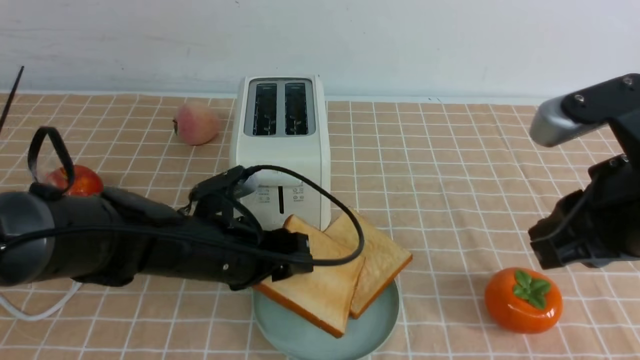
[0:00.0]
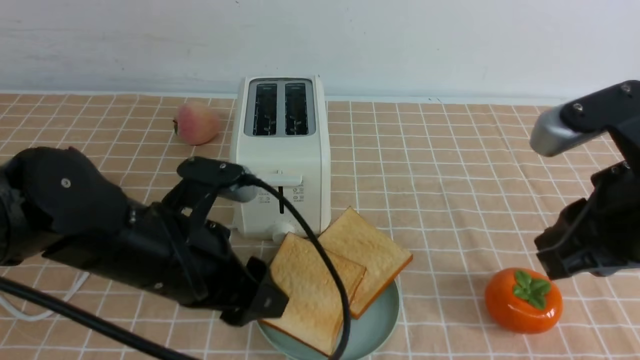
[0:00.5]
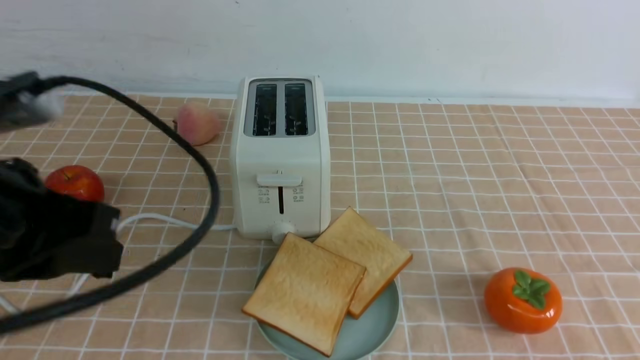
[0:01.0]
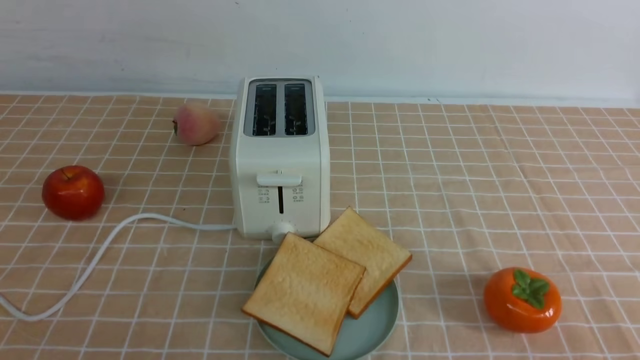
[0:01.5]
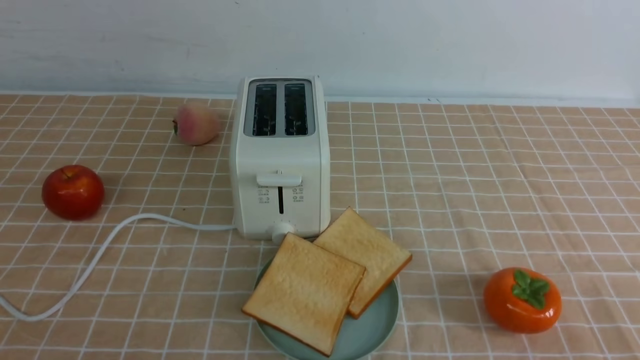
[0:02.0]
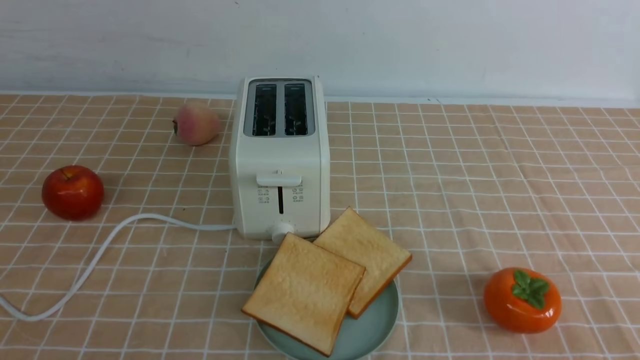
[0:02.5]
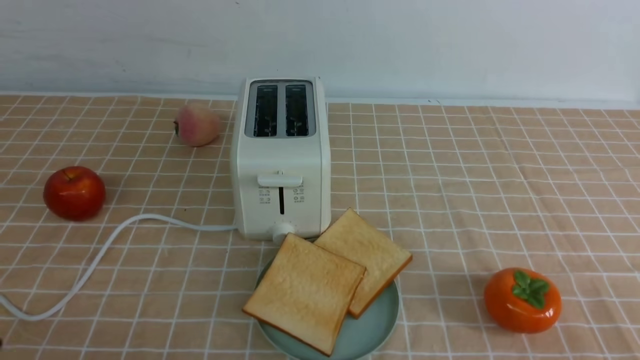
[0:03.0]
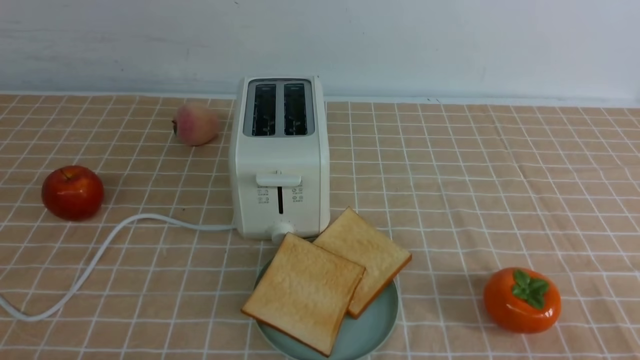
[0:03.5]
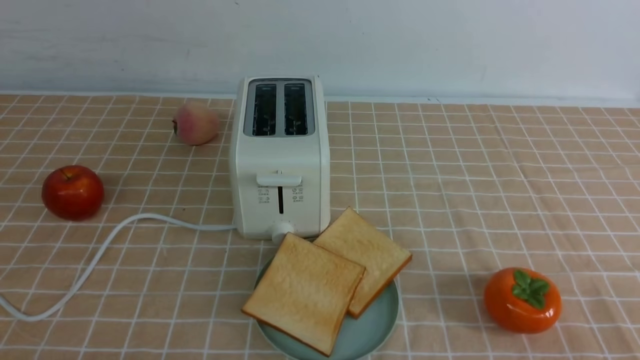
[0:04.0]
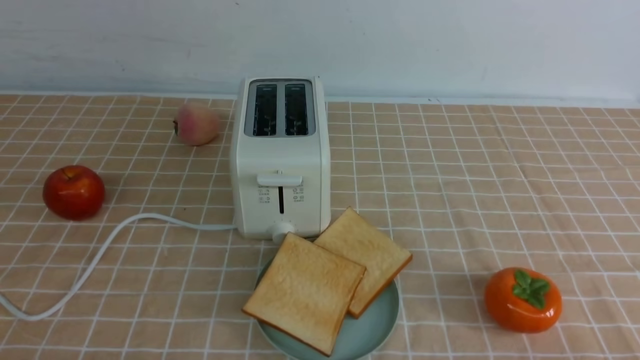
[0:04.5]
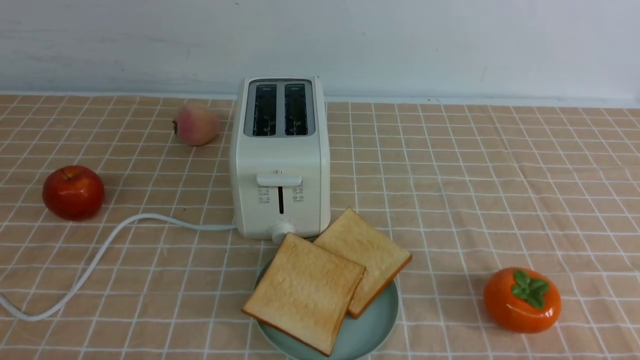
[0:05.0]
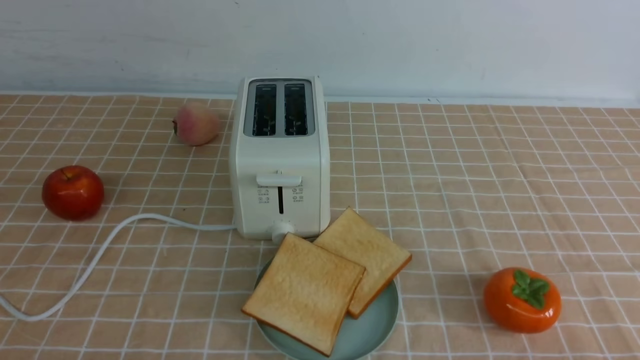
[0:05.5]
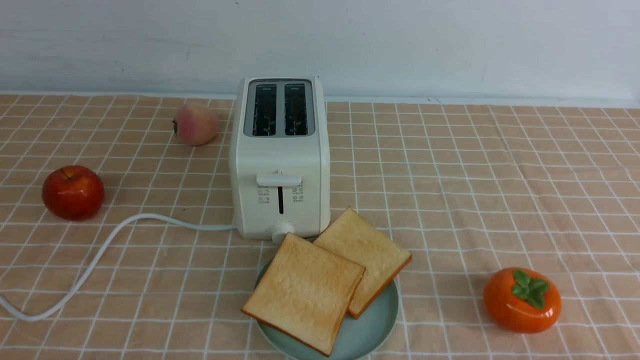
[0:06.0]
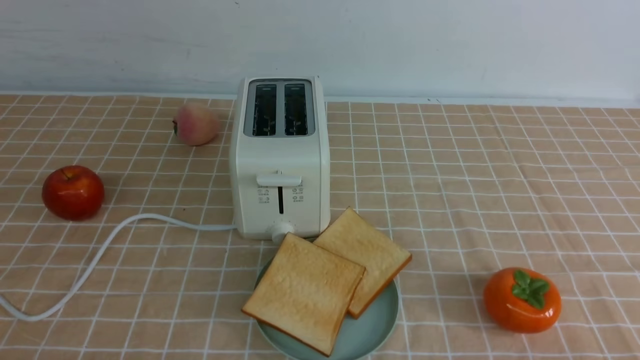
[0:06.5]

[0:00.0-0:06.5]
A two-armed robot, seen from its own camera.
Task of the whole recording: take toasted bread from bread machine on light coffee tablecloth place on plate.
0:00.0 to 0:02.0: The right gripper shifts some 20 cm backward, downward and to the right. The left gripper shifts approximately 35 cm backward, upward and to the left, and closes its fingers.
0:04.5 to 0:06.5: Neither gripper changes place.

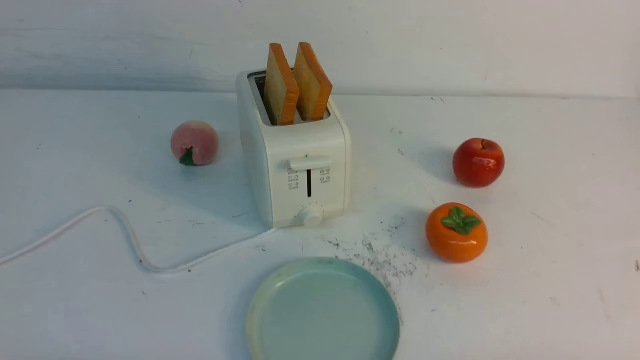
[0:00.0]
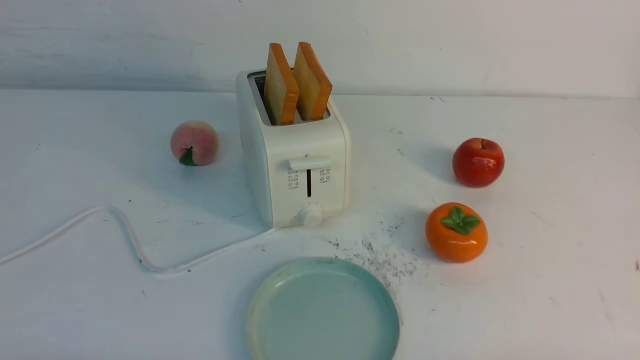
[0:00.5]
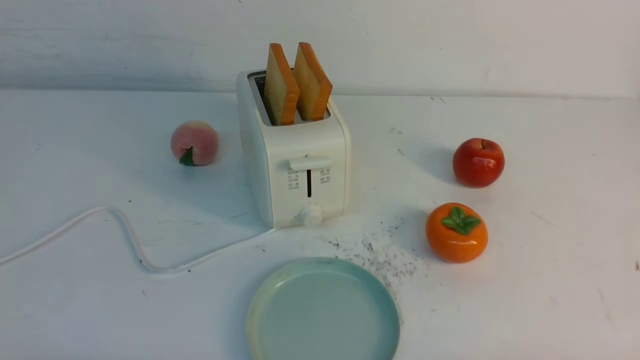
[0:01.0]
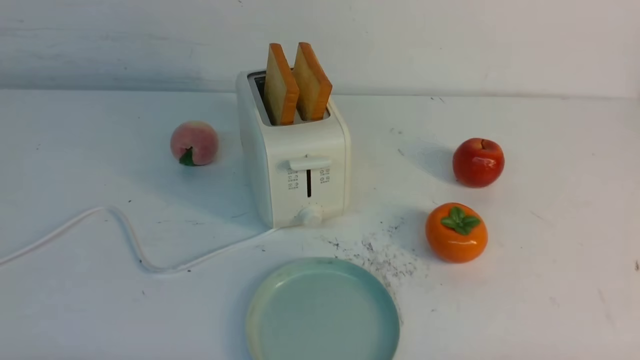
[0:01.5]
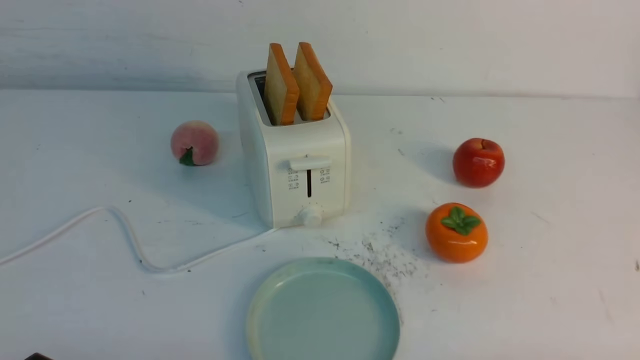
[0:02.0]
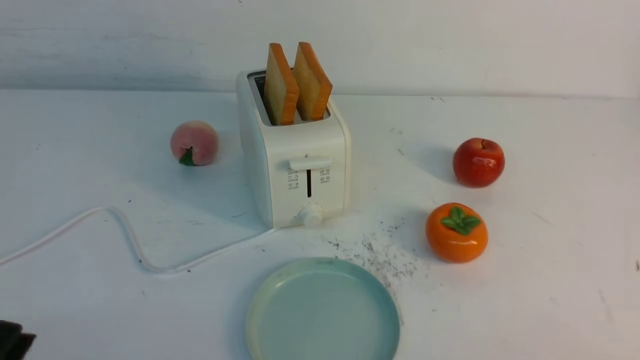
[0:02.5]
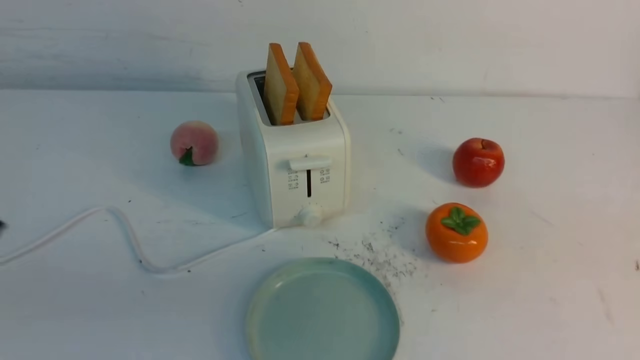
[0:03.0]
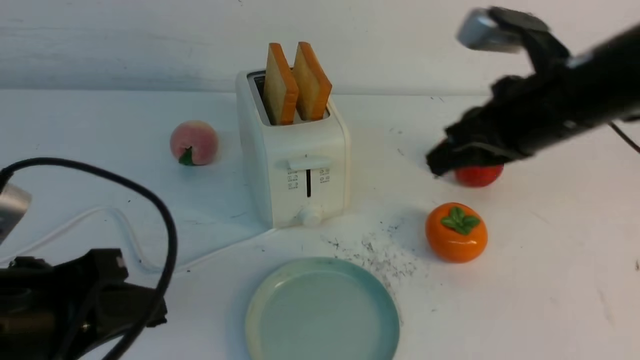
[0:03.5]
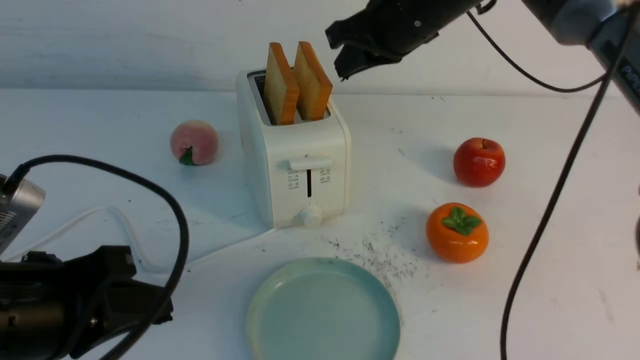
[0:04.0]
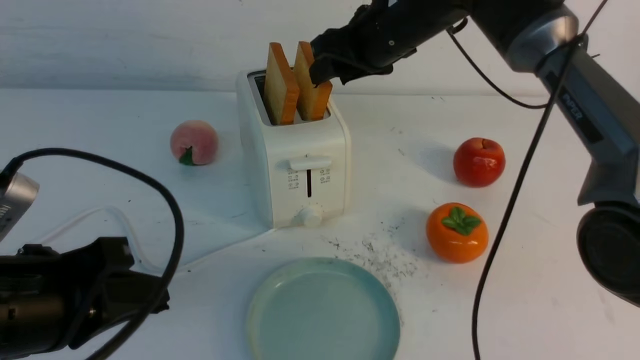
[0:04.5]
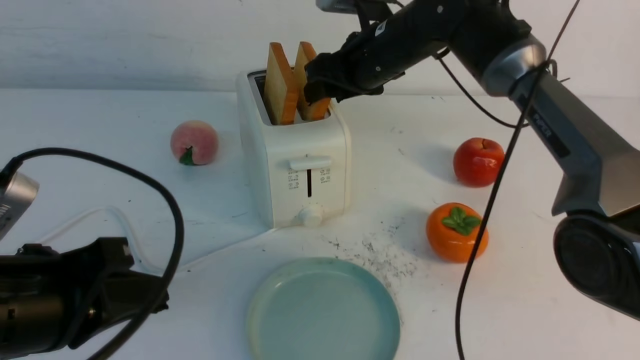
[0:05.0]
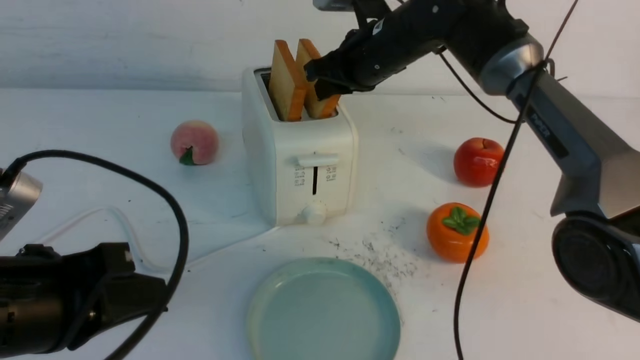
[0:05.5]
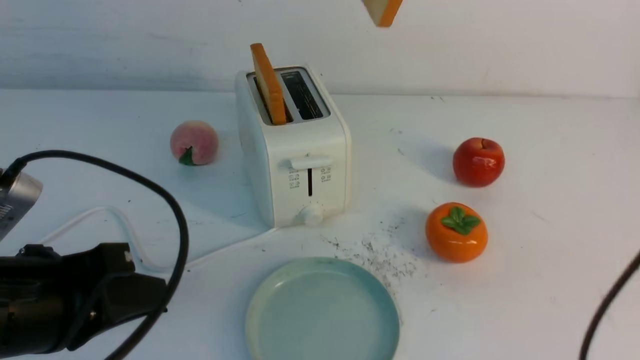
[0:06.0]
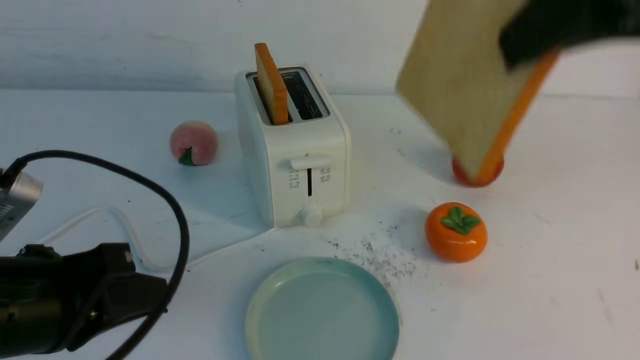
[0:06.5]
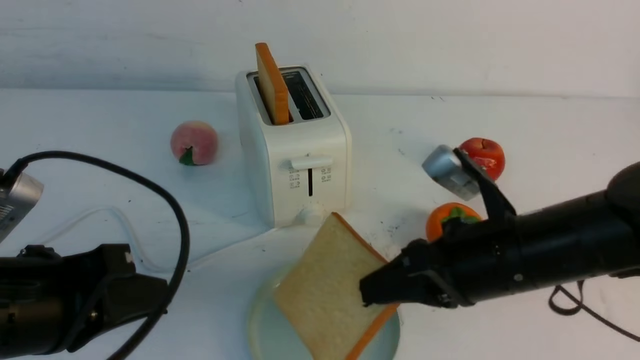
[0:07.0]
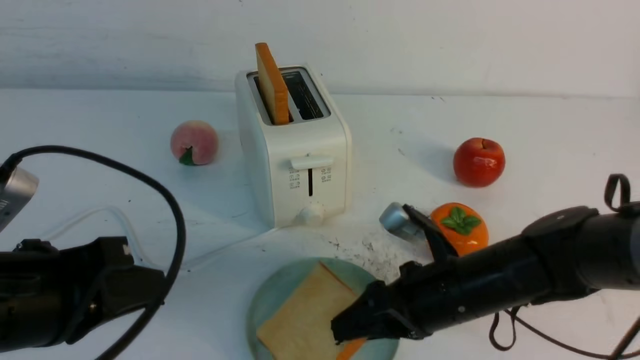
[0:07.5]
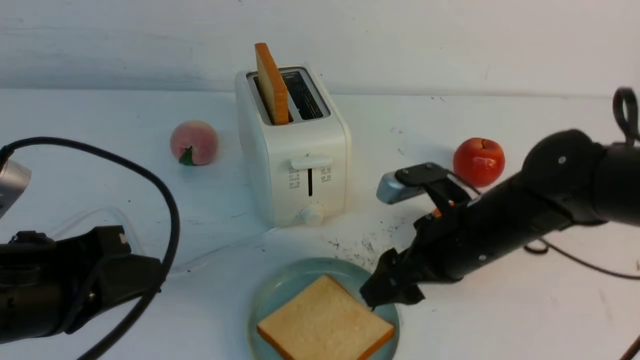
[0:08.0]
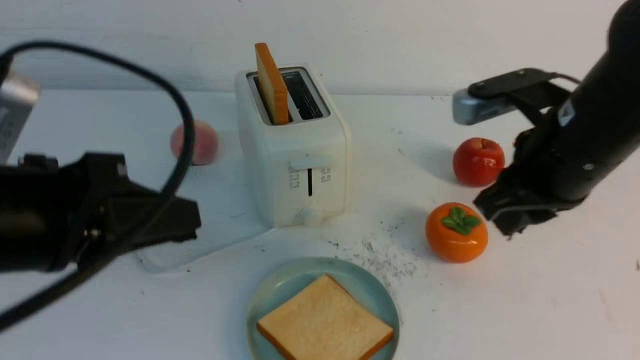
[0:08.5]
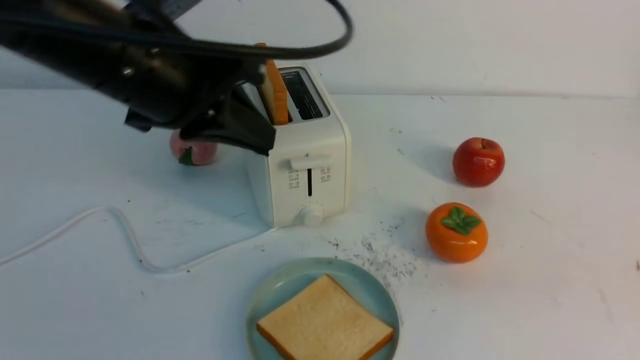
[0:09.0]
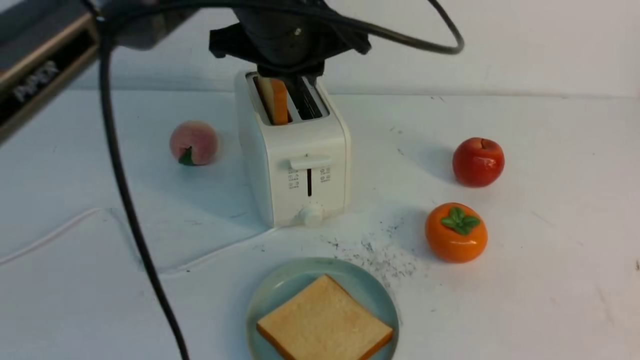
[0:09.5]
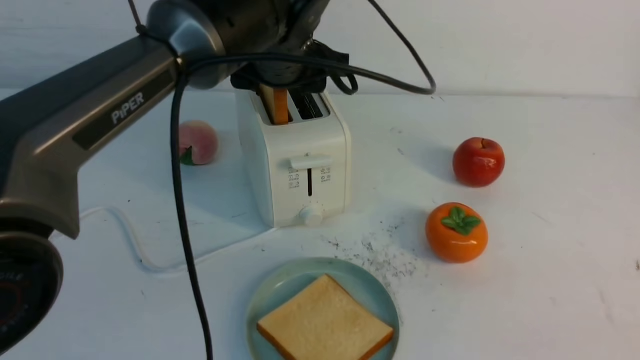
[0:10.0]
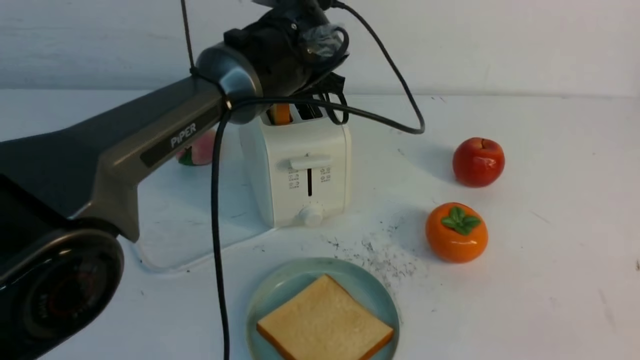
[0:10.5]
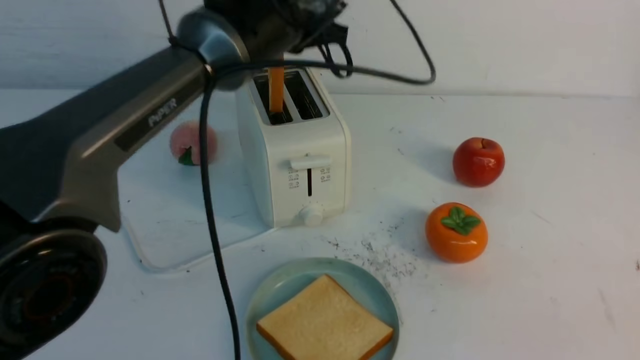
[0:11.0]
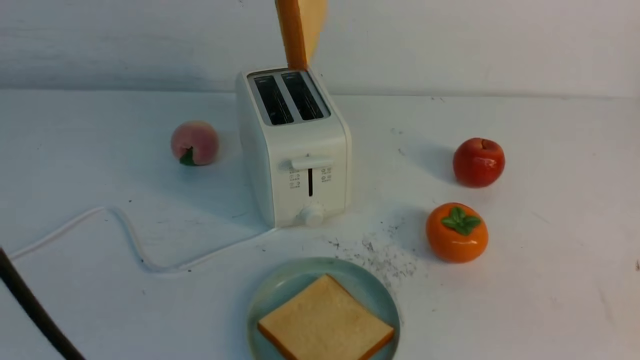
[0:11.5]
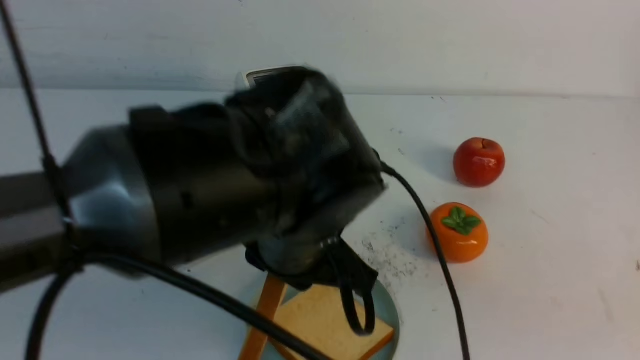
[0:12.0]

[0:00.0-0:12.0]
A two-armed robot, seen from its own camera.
Task of the whole recording: take toasted bread from bread machine on white table place on plate.
Step, 0:00.0 to 0:05.5: use the right arm to take out a slice of bread.
Step, 0:06.0 to 0:08.0: use the right arm to put a slice of bread into the plate.
Step, 0:08.5 to 0:11.0: use the left arm to take out a slice of bread.
0:02.0 to 0:04.0: The right gripper shifts approximately 50 cm forward, to the left and upward, while the left gripper travels upward and forward by roughly 15 cm, and closes its fingers.
0:04.0 to 0:06.0: The right gripper goes some 15 cm upward and backward, and opens and closes again.
0:06.0 to 0:08.0: The right gripper travels downward by some 30 cm, and opens.
0:08.0 to 0:10.0: The right gripper is displaced backward, to the right and upward by about 30 cm, and closes up; the left gripper shifts some 30 cm forward and to the right, and opens its fingers.
0:10.0 to 0:12.0: The left gripper shifts some 20 cm backward, and closes up.

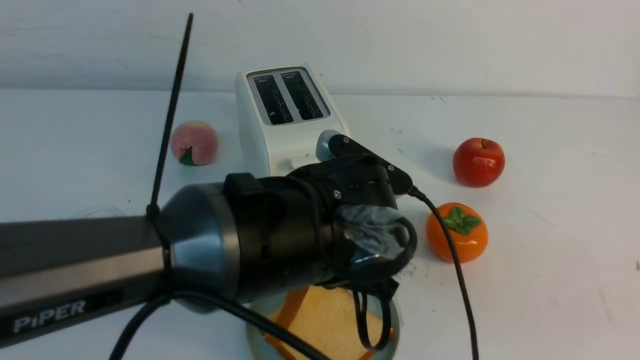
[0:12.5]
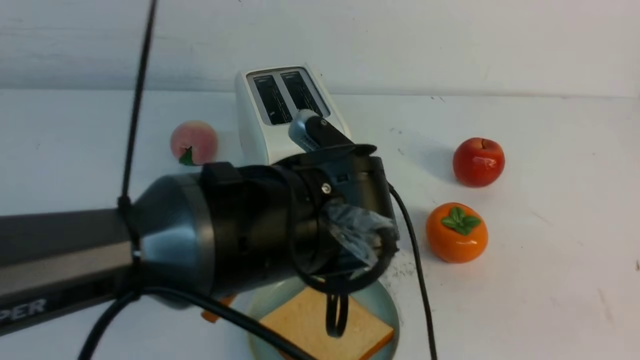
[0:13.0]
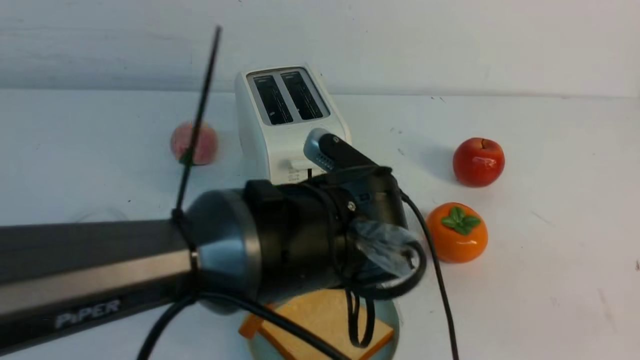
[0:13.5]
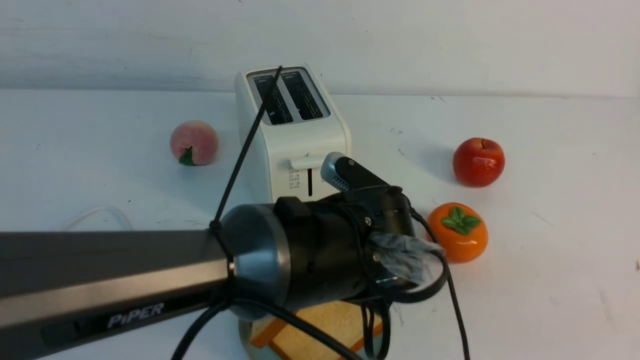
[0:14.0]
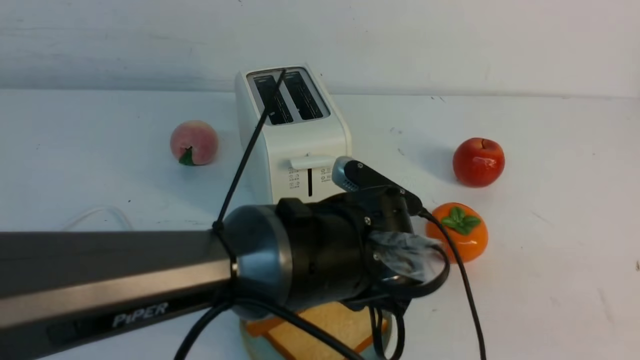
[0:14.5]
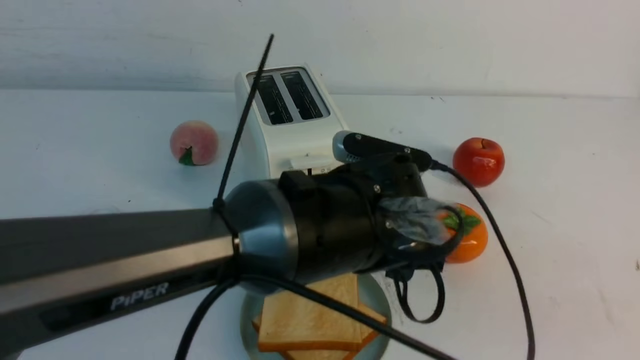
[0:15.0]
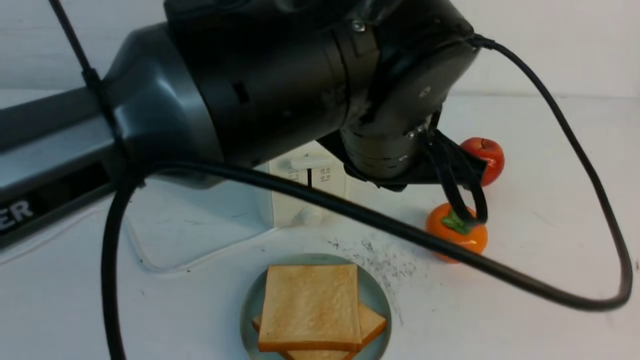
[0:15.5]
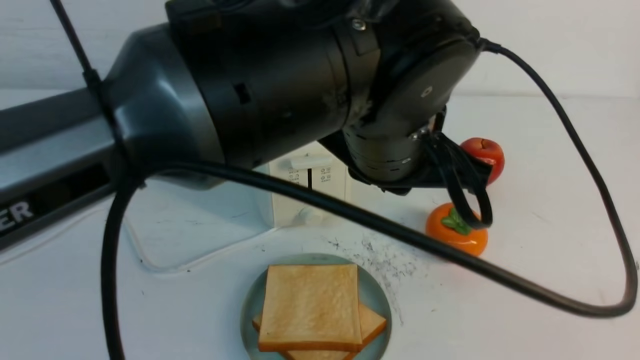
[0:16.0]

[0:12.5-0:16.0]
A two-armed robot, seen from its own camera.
Task of the whole recording: take toasted bread from bread machine on white table place on plate.
Step, 0:12.5 to 0:15.0: use the left arm to put a slice of bread into the empty plate.
0:12.5 to 0:14.5: The left gripper opens.
0:14.5 to 0:16.0: The left gripper goes some 15 cm upward, and closes its fingers.
